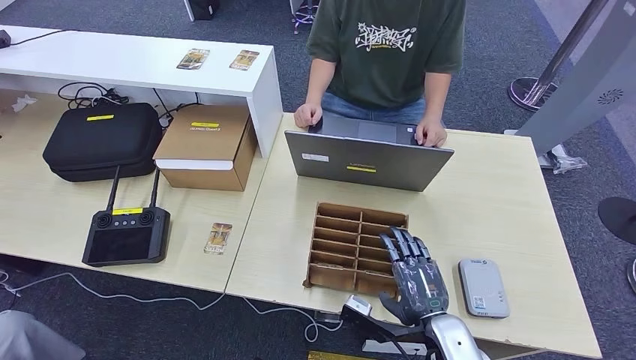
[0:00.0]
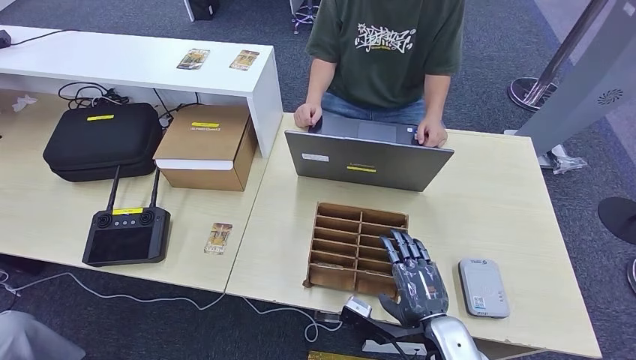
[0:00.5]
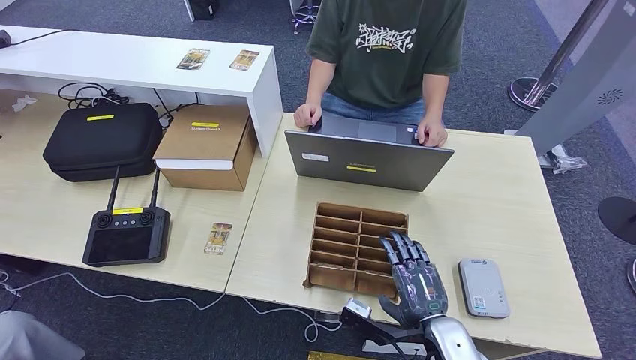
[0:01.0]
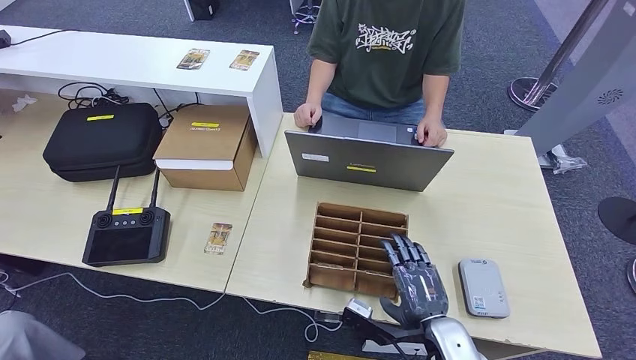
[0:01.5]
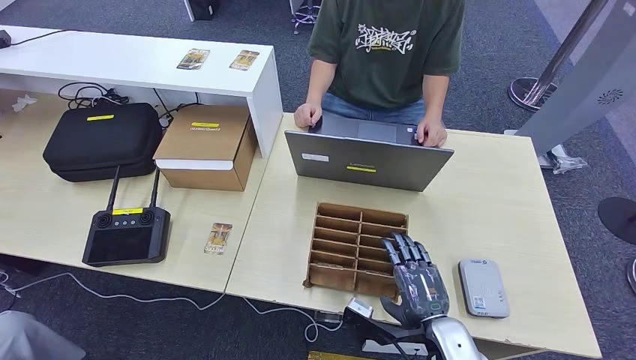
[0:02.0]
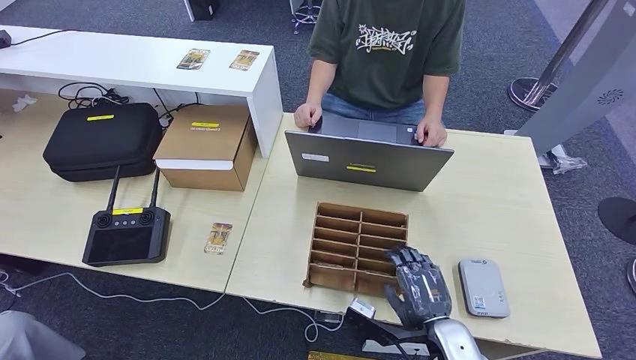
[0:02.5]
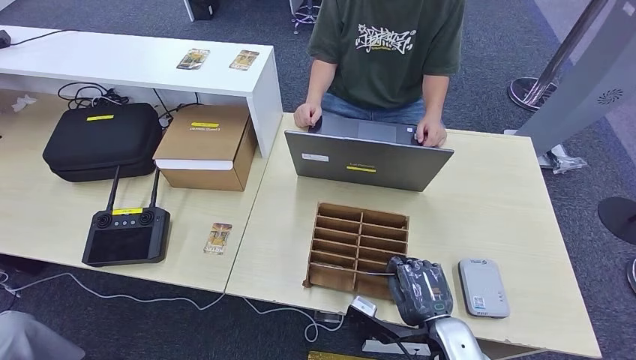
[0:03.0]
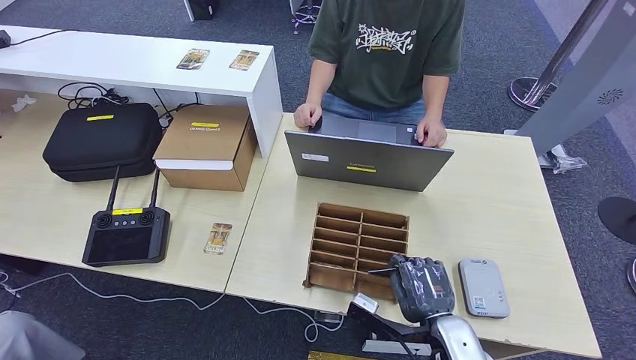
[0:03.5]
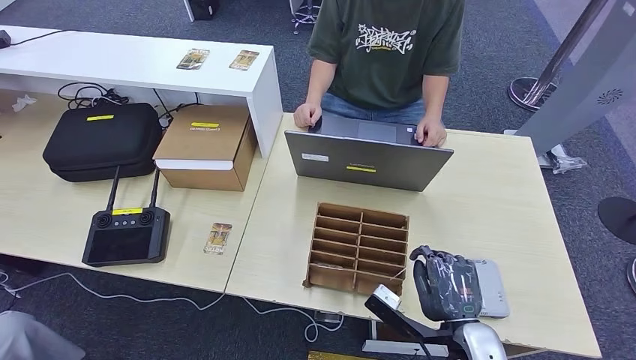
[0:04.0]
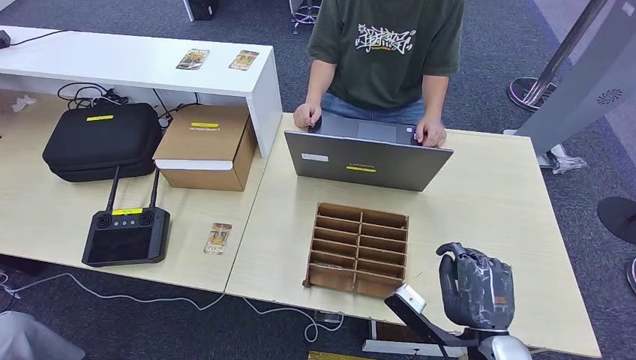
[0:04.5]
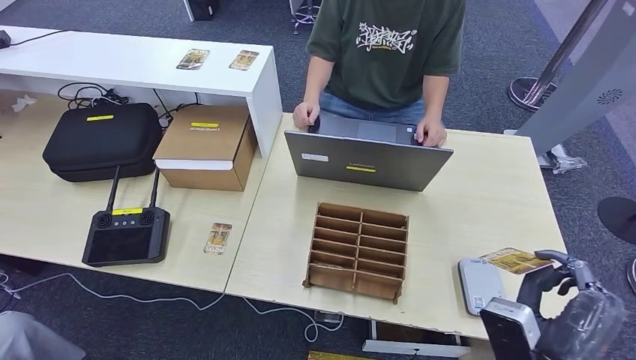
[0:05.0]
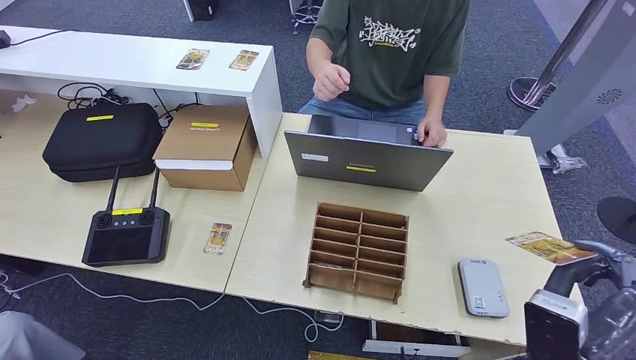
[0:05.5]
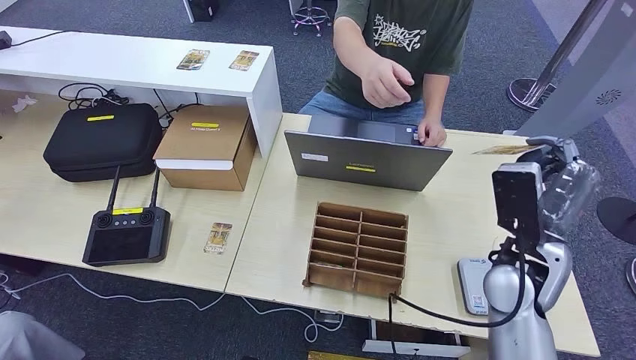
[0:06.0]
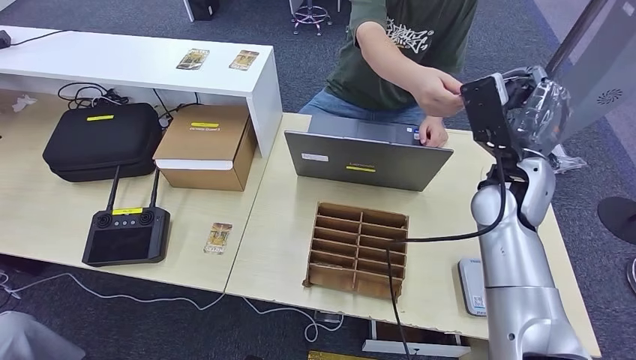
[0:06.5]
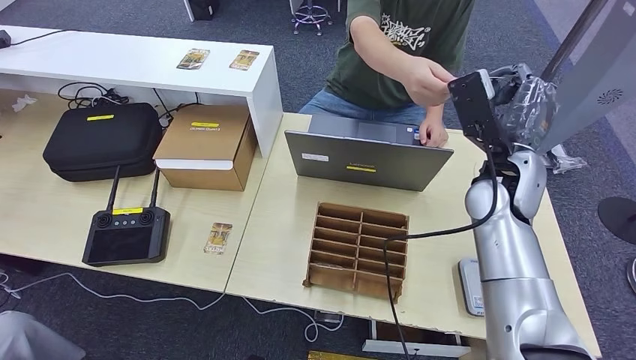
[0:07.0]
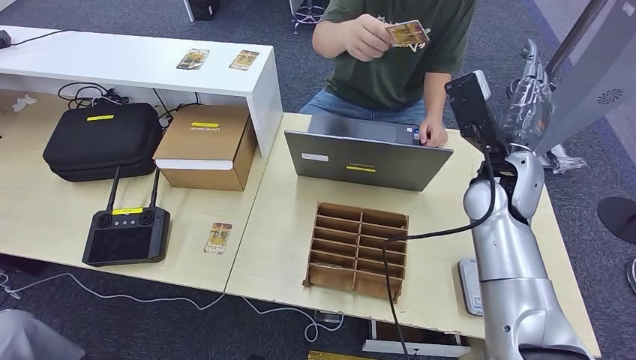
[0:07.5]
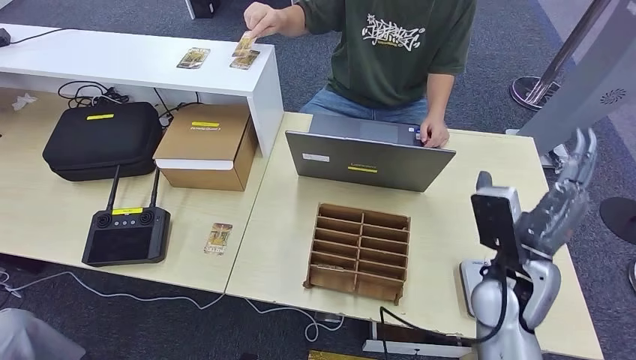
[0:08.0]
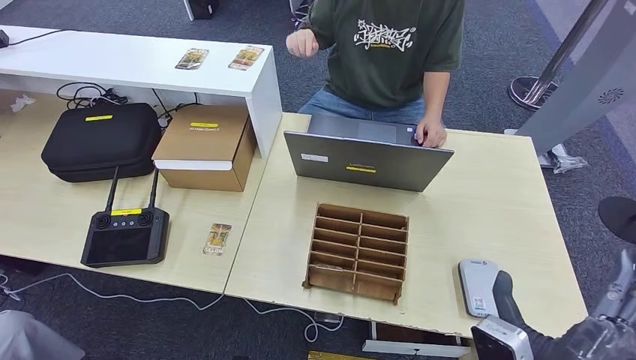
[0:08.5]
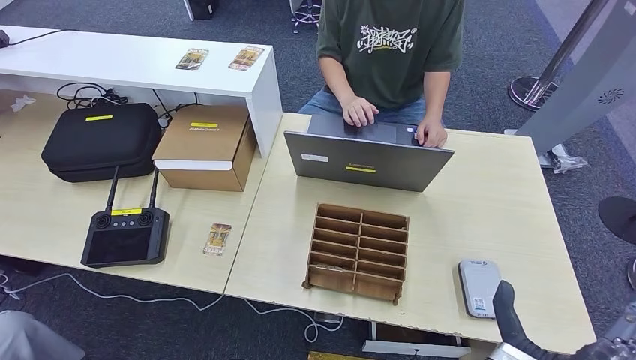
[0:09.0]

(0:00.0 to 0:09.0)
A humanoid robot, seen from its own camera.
Step, 0:00.0 - 0:05.0: Pick up the room key from the key card box.
Step, 0:05.5 - 0:09.0: Hand the room key to the person.
0:00.0 - 0:02.0: The hands stay close to where they were, moving slightly.
0:02.0 - 0:04.5: The right hand heads upward, covering some 5 cm.
0:04.5 - 0:07.0: The right hand goes about 25 cm forward and upward.
0:07.0 - 0:09.0: The right hand travels backward by approximately 30 cm.
